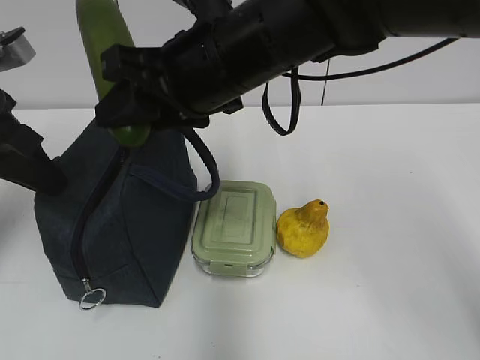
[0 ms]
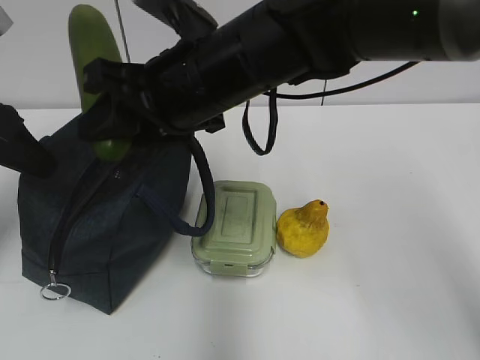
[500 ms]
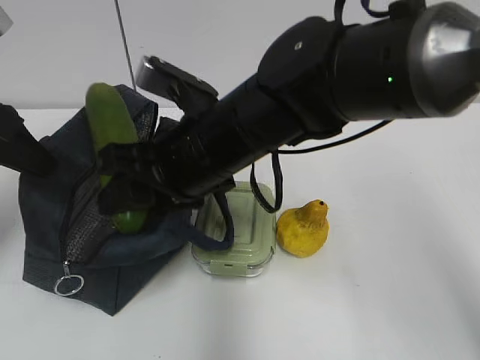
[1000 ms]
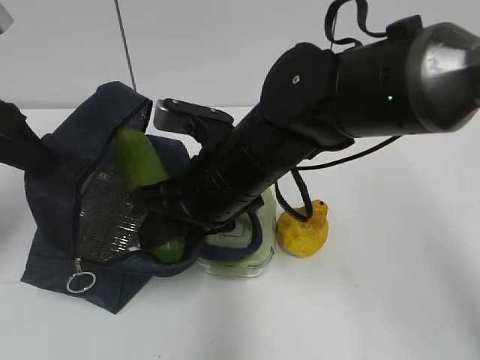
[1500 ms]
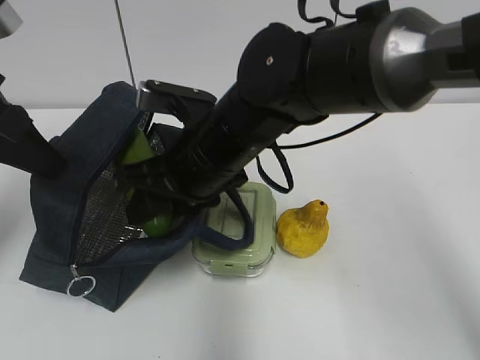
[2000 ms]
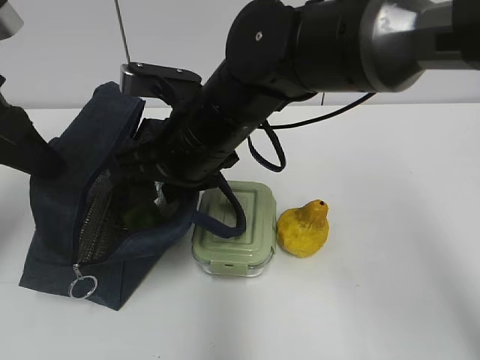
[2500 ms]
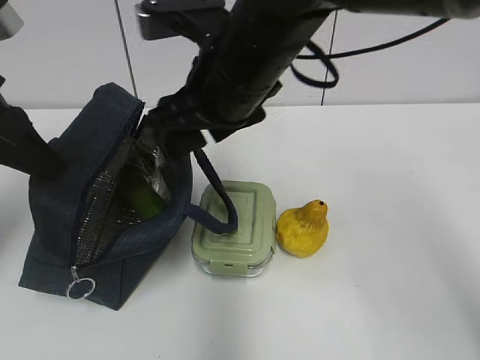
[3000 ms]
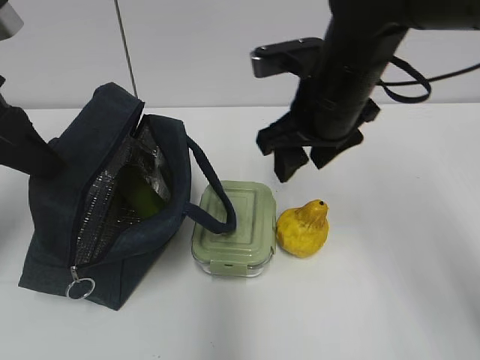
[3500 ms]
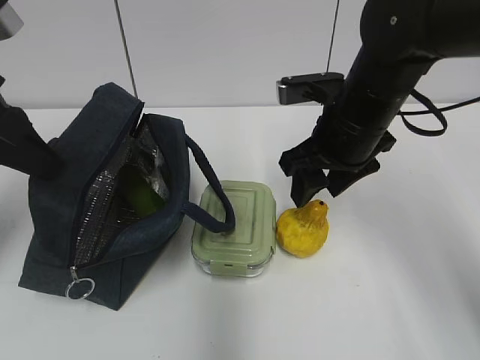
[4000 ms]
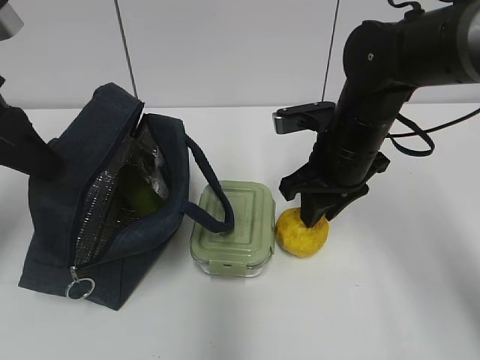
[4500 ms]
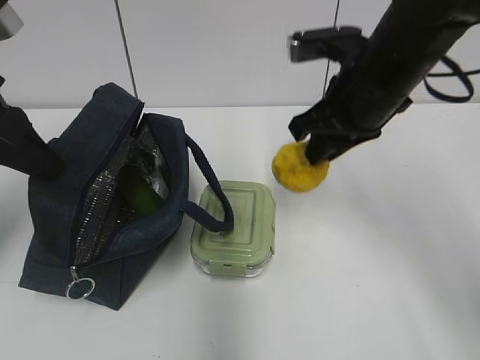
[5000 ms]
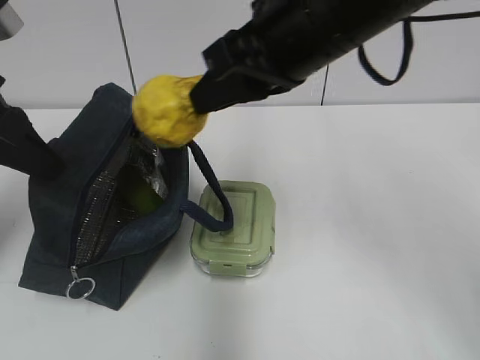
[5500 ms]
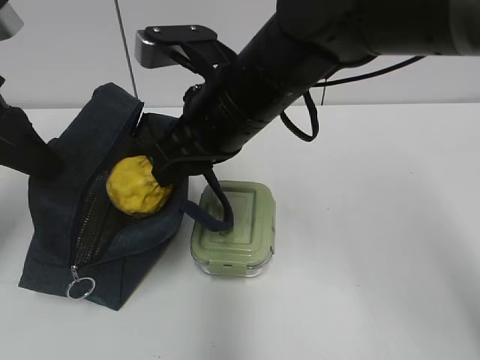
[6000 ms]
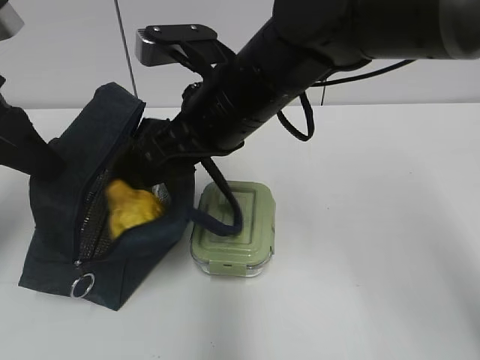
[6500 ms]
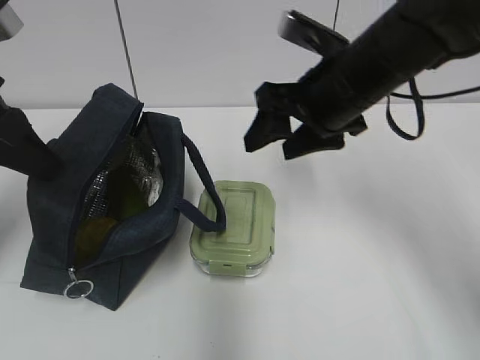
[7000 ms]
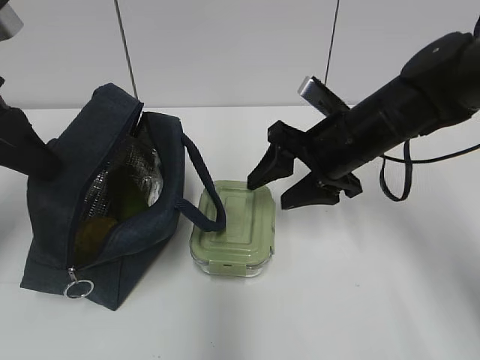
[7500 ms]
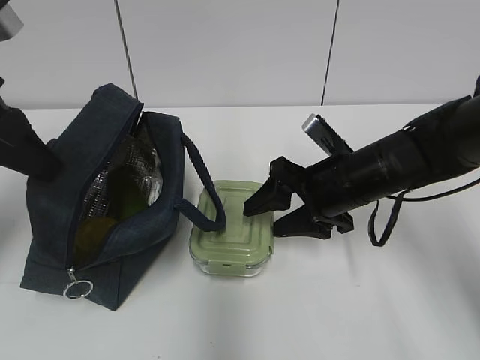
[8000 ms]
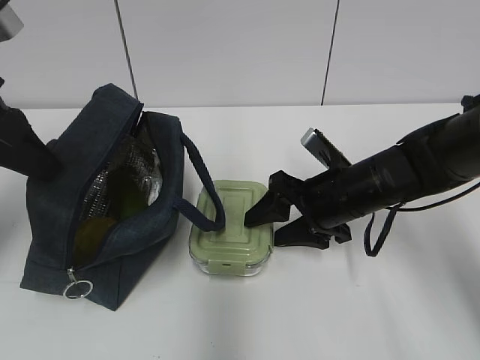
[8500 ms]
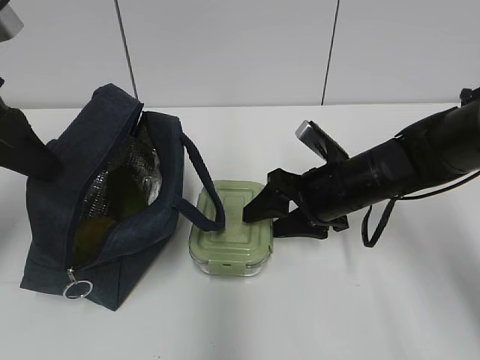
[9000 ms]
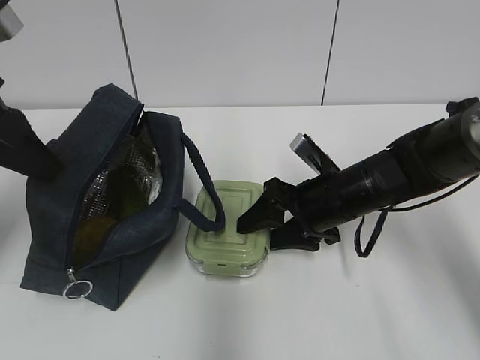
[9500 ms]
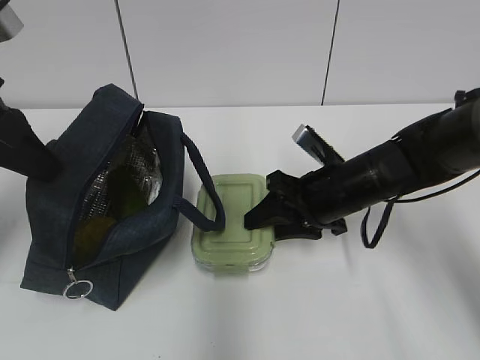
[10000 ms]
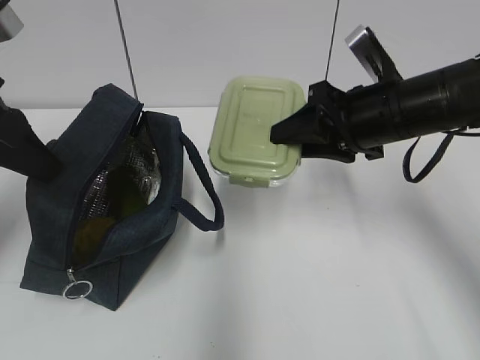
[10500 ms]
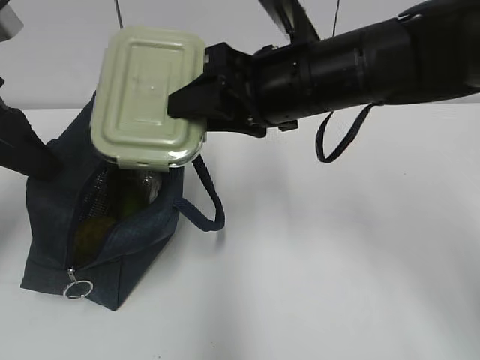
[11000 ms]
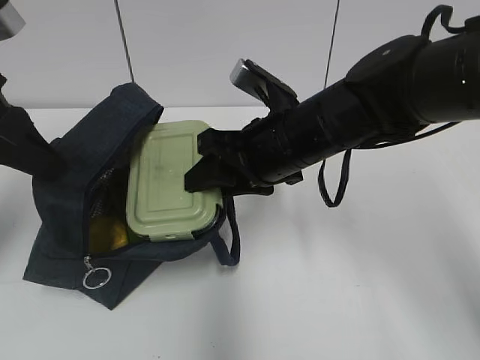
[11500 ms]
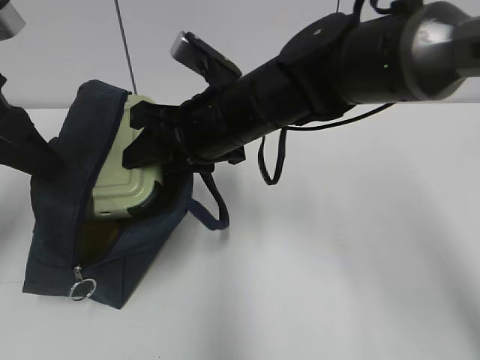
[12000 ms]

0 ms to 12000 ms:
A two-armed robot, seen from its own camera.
Step, 1000 ms to 2500 ms: Place it into the bag with your right hand.
Step, 3000 ms to 4500 ms: Grab the pear with your right hand.
Step, 5000 ms to 6500 ms: Place it into the bag with your right hand.
Step, 7000 ms to 9500 ms: Grab the lunch box with your right hand.
0 ms to 2000 ms: The right gripper is displaced downward by approximately 10 cm.
2000 ms to 4000 ms: The right gripper travels to the right by roughly 15 cm.
4000 ms to 6000 ms: The right gripper shifts approximately 10 cm to the left, reaches about 10 cm upward, then returns, and closes.
6000 ms to 8000 ms: The right gripper travels downward and to the right by roughly 15 cm, and opens up.
8000 ms to 10000 ms: The right gripper closes its fingers.
10000 ms to 12000 ms: The right gripper is displaced to the left and upward by about 15 cm.

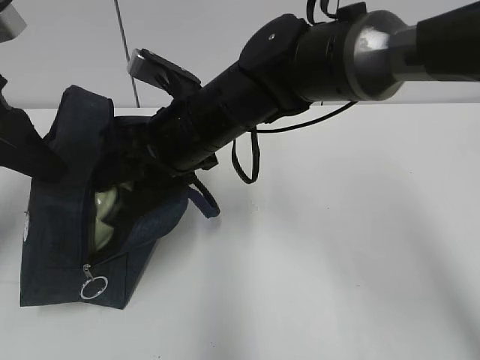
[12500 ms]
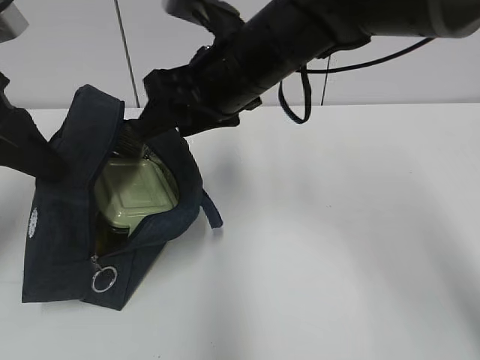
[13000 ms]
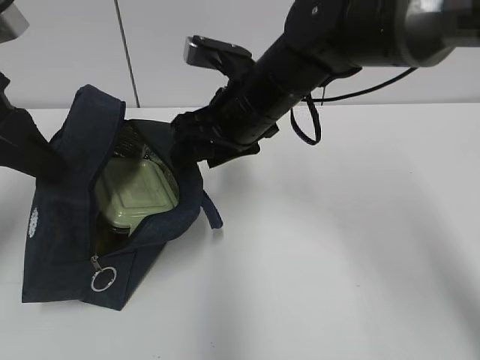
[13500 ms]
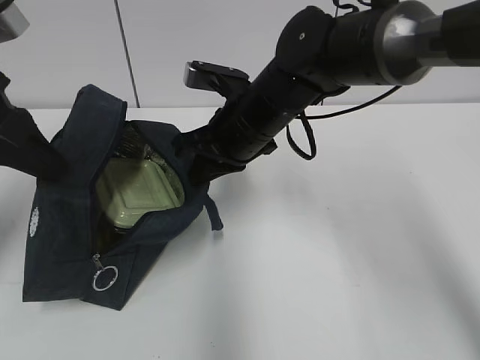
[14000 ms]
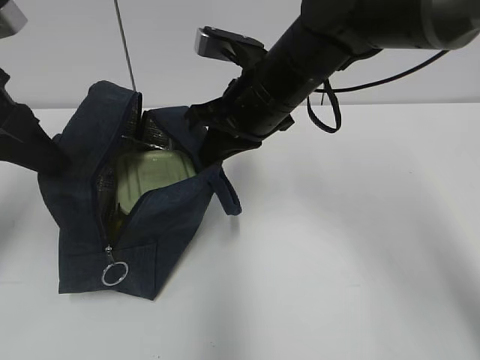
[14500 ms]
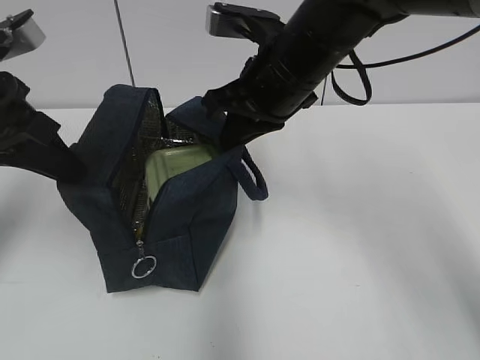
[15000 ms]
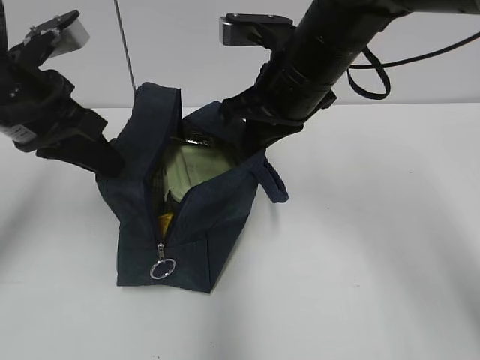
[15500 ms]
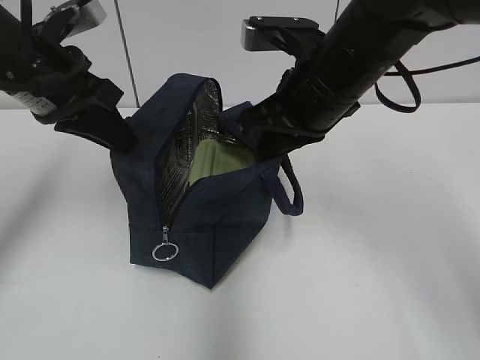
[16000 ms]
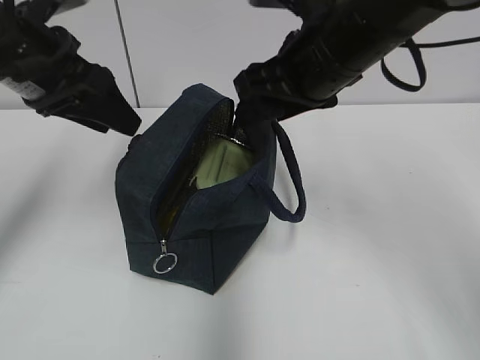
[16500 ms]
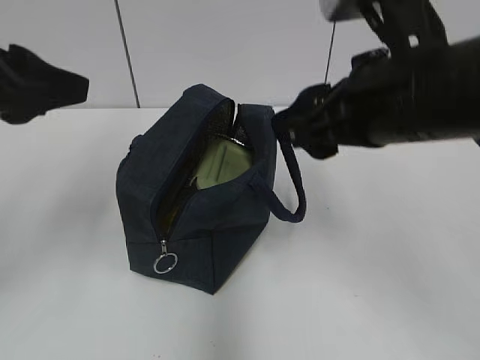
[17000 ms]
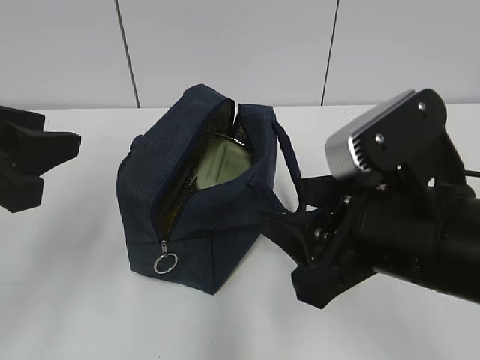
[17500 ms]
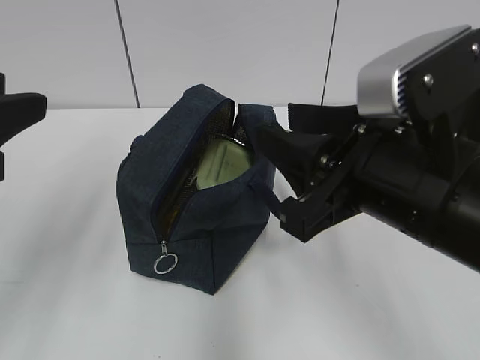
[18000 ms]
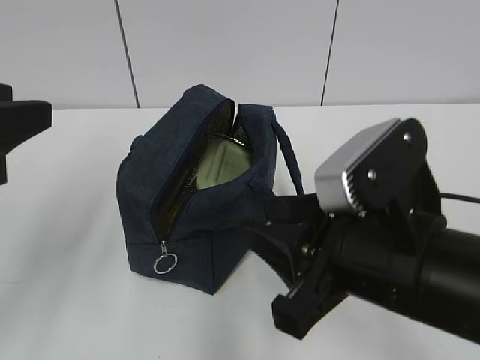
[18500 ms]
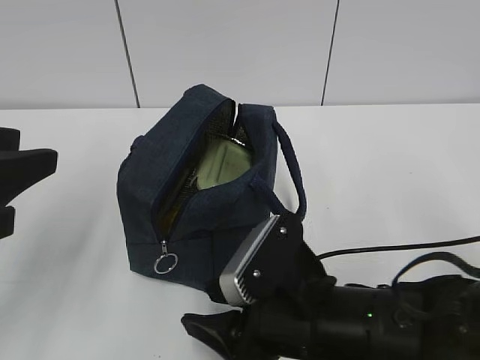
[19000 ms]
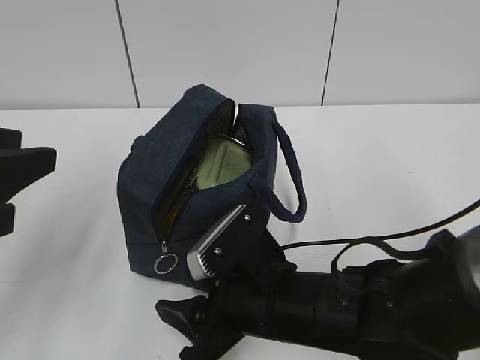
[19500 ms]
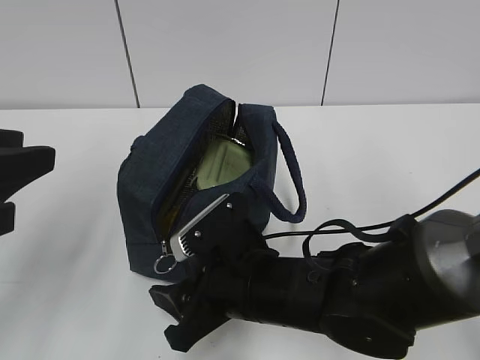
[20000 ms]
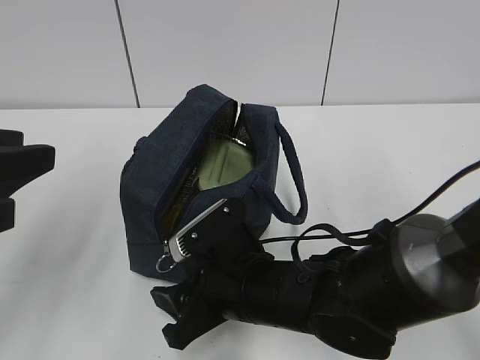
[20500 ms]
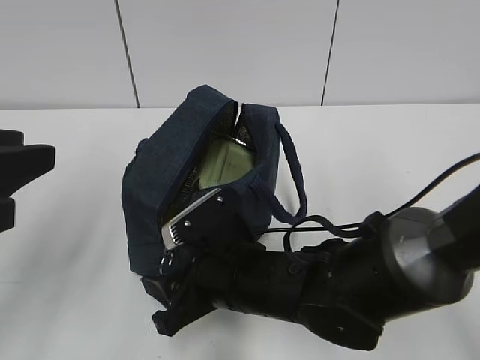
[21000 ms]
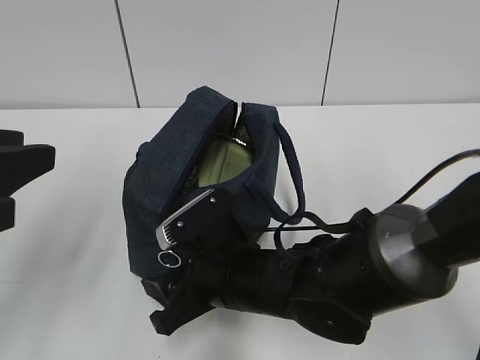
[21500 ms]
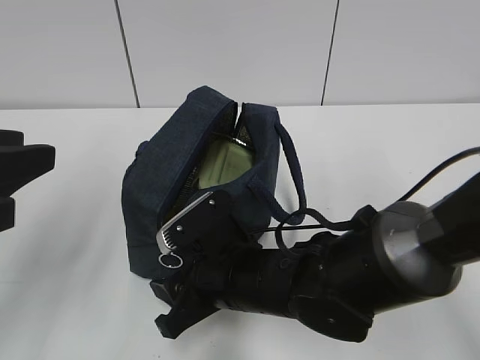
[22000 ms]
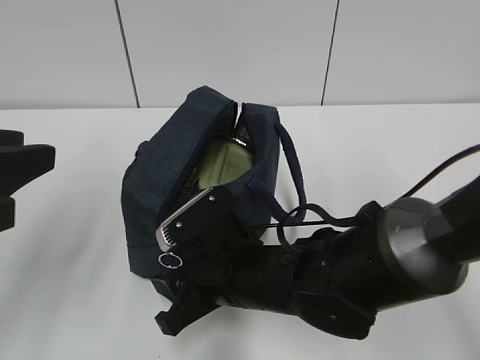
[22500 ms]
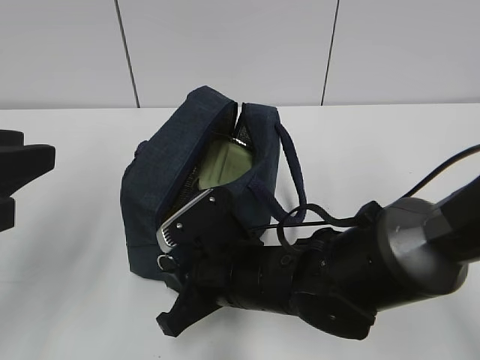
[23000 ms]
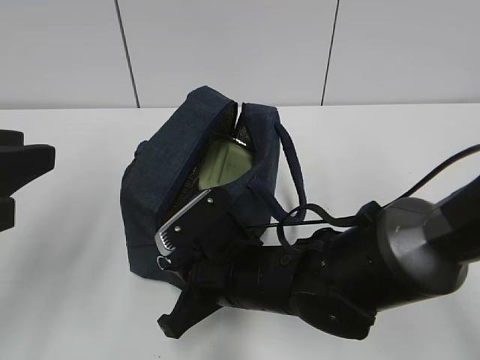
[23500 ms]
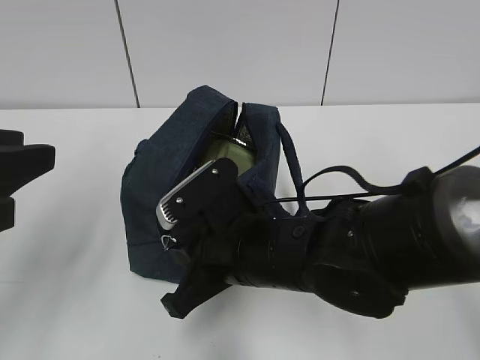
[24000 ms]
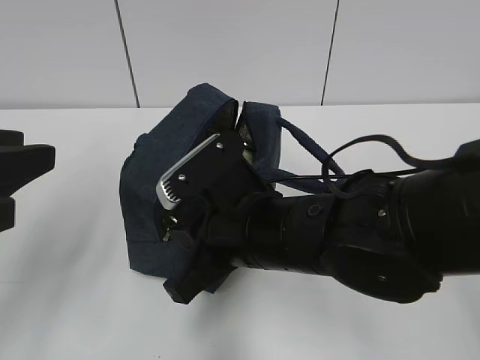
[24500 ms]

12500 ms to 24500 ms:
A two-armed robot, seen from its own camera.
Step, 13000 ms to 14000 ms: Grab the lunch bag with your right hand.
Step, 14500 ms to 16000 ms: Move the lunch bag to the right.
12500 ms to 14500 ms: The right gripper moves to the right, about 5 cm, and closes up.
14500 ms to 16500 ms: The right gripper heads upward, covering approximately 5 cm, and opens up. Meanwhile the left gripper is displaced forward by about 5 cm, and opens up.
16500 ms to 18500 ms: The right gripper is displaced backward and downward by roughly 20 cm. Meanwhile the left gripper shifts some 15 cm backward.
18500 ms to 20500 ms: The right gripper is displaced downward, to the left and forward by approximately 15 cm.
20500 ms to 22500 ms: The grippers move only a little.
22500 ms to 24500 ms: The right gripper is displaced upward by some 10 cm, and closes its fingers.

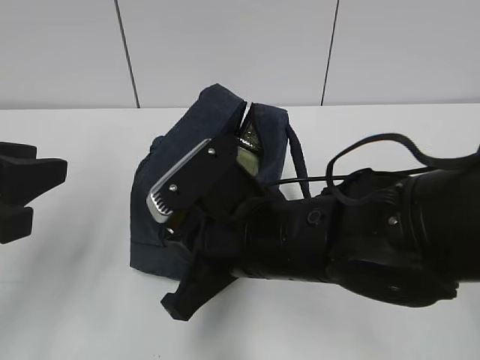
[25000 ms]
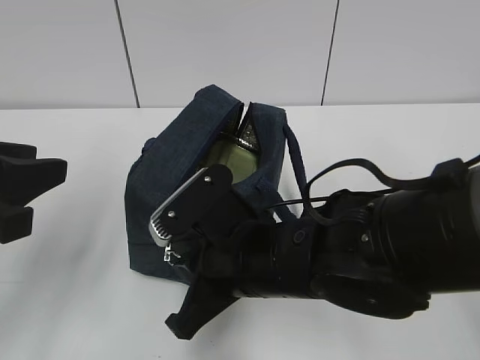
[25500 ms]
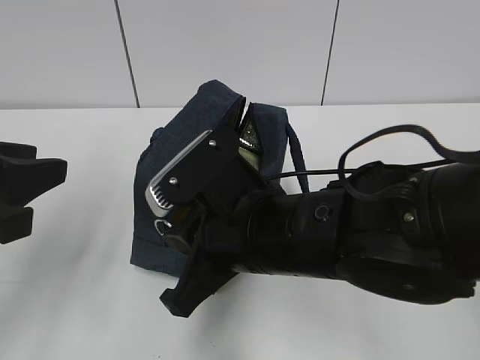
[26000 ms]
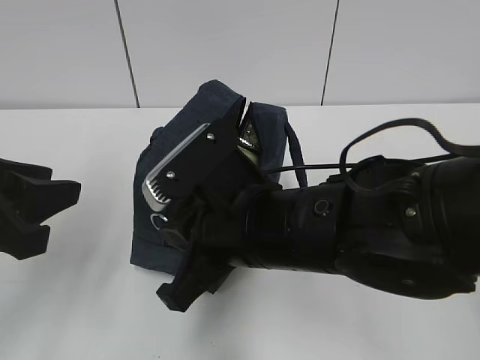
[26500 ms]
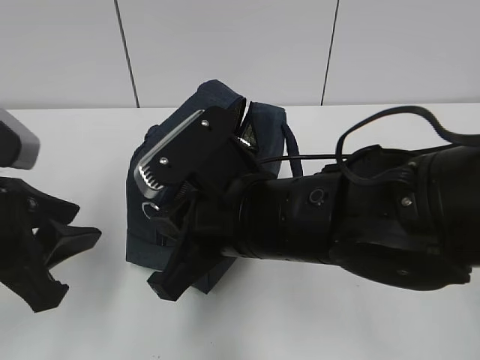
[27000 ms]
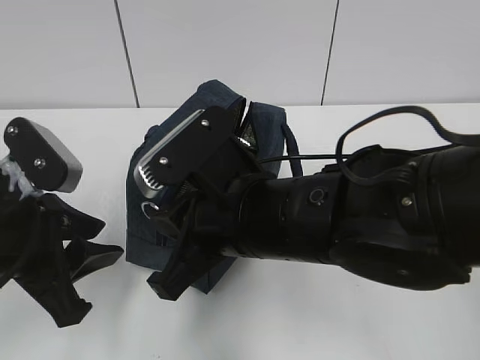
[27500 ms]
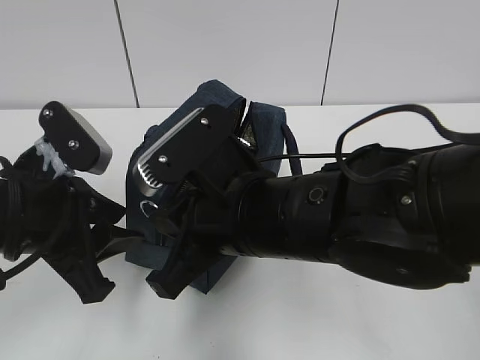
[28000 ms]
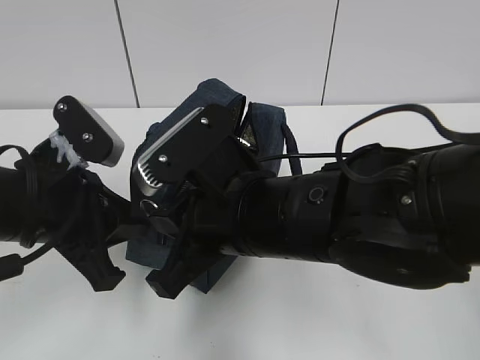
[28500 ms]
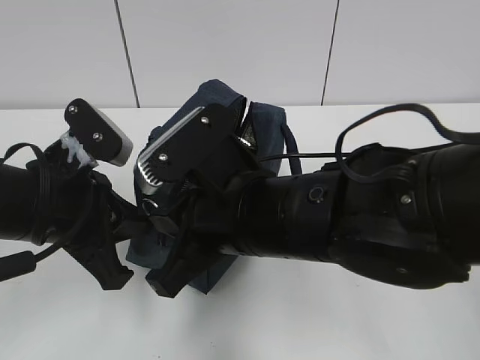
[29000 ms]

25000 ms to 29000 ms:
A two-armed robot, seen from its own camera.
25000 ms to 27000 ms: The left gripper moves approximately 5 cm.
27000 ms to 29000 ms: The left gripper ends up roughly 5 cm from where it was, and closes.
